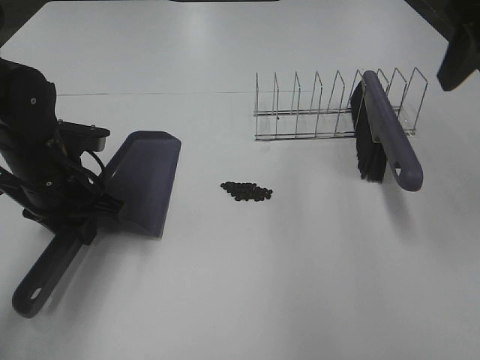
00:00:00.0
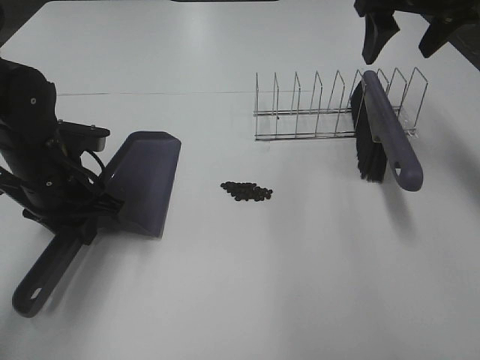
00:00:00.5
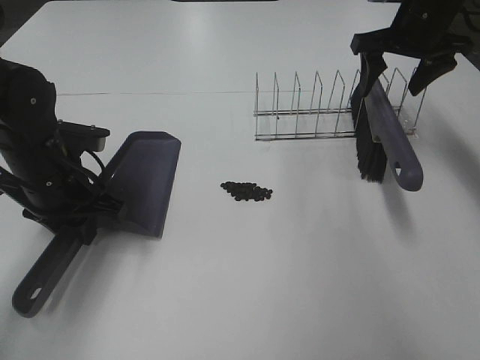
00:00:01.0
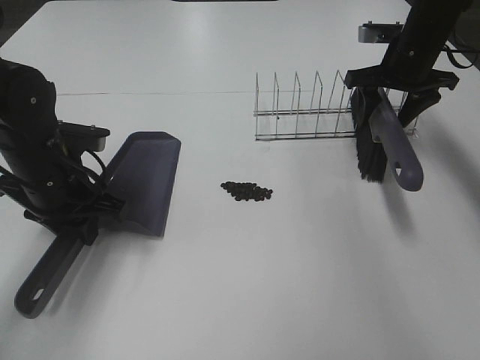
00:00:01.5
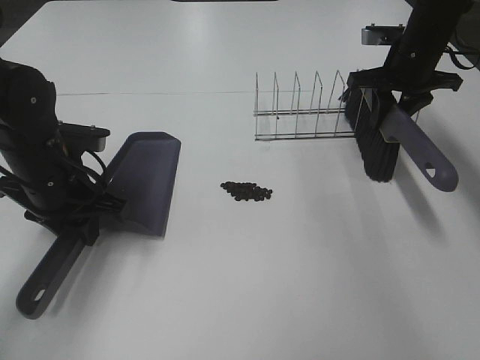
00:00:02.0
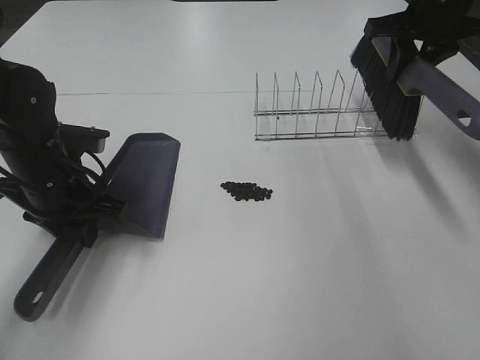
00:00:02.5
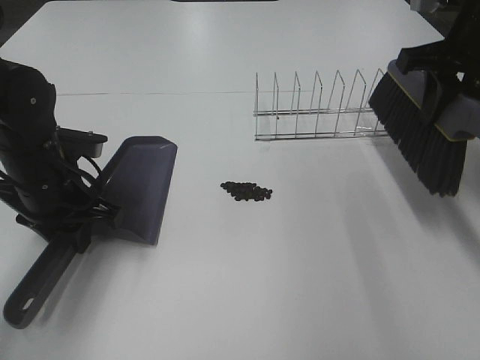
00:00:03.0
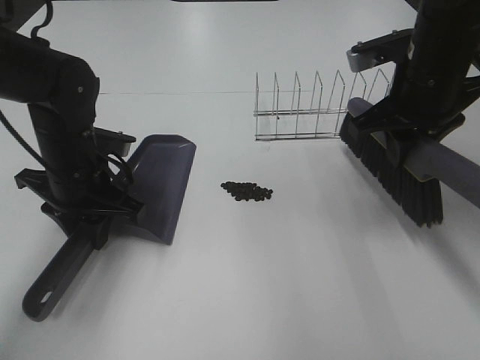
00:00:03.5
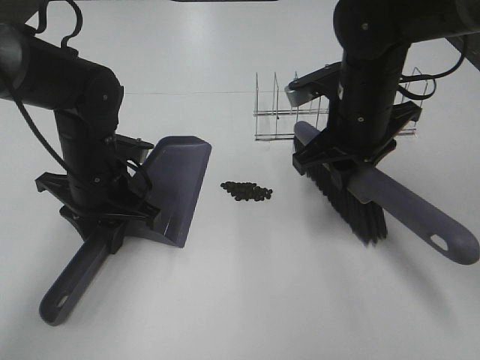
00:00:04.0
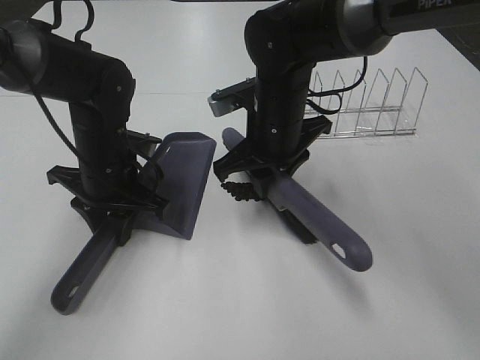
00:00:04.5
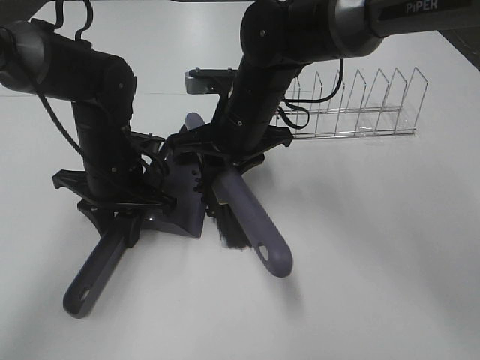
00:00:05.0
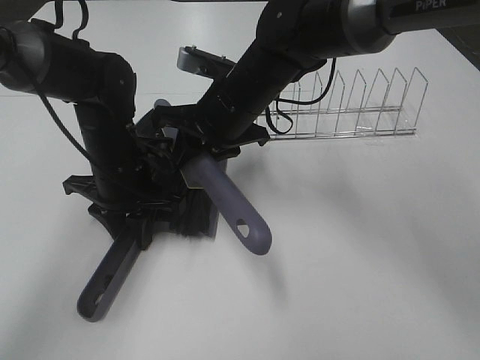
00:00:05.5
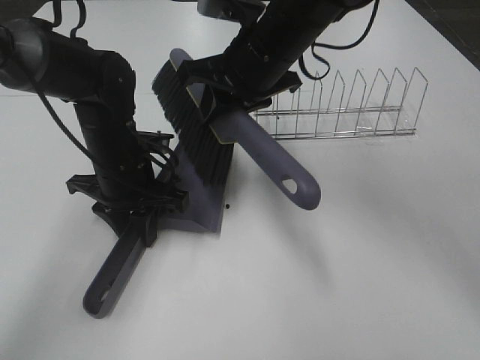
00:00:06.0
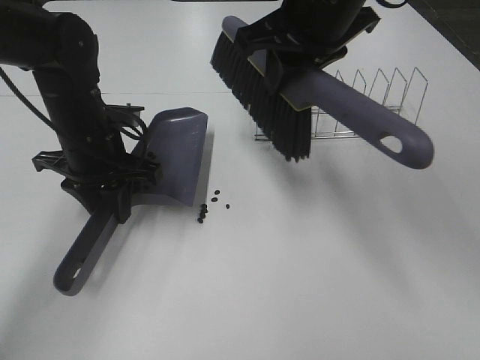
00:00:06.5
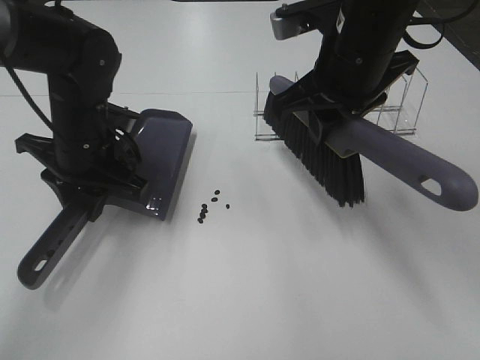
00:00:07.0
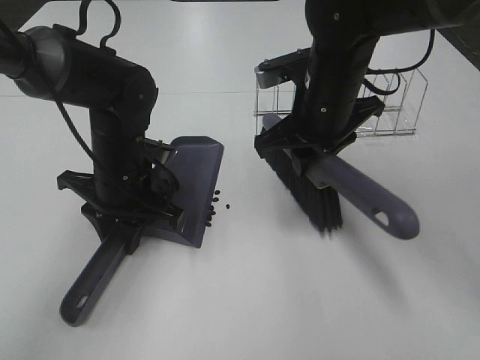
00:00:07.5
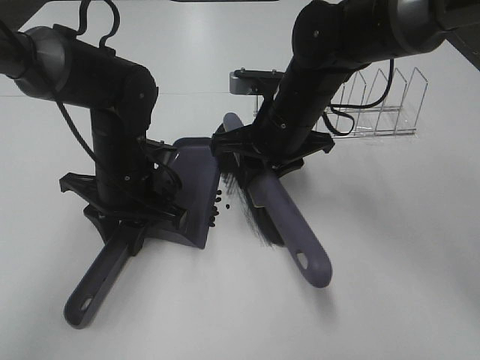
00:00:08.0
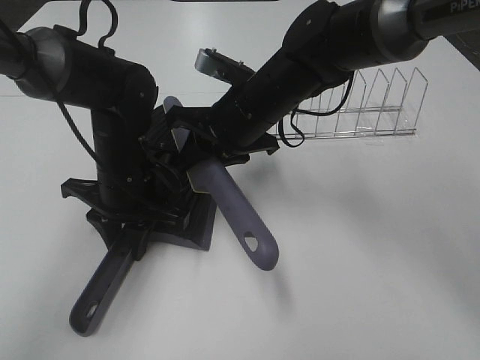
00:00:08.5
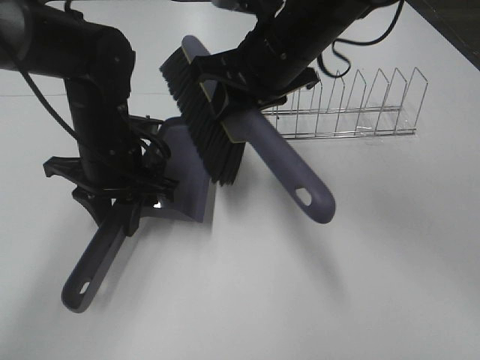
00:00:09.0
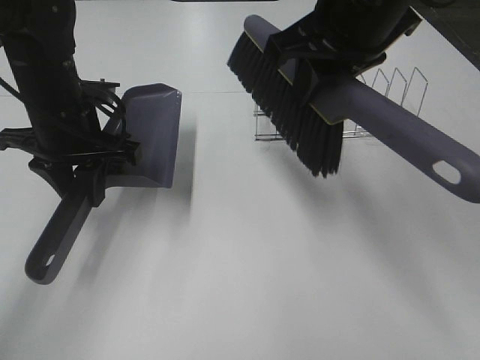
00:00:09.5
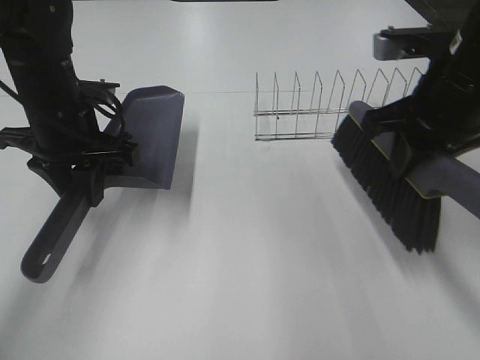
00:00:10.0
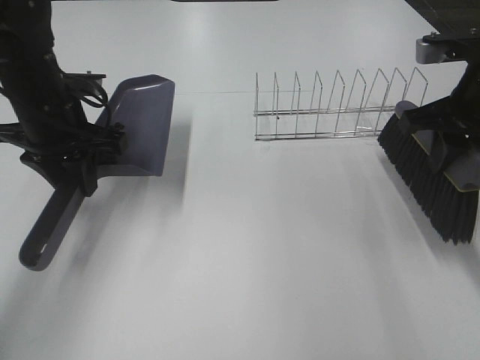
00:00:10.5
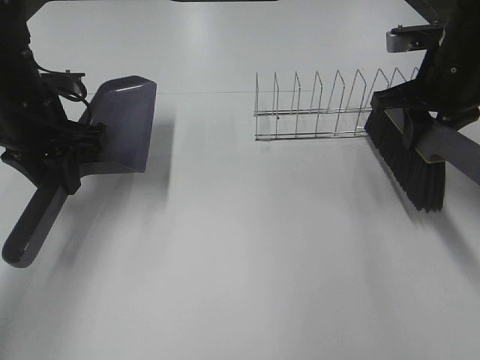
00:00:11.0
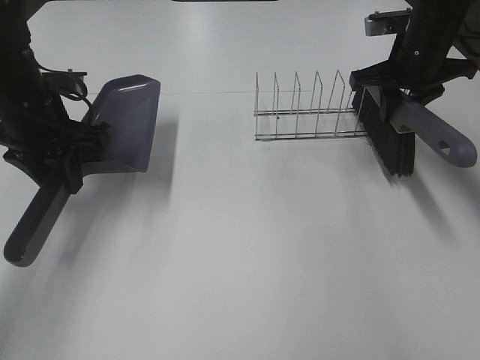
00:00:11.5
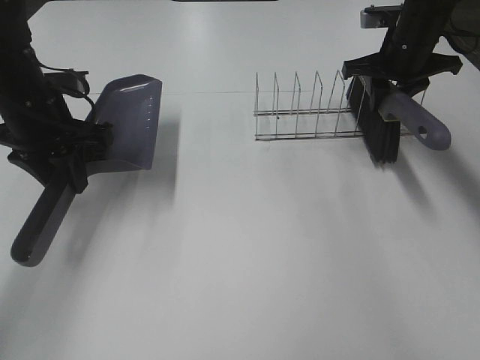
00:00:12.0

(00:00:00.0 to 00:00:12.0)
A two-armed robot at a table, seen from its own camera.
Task of the whole recording: Sweep Coffee Bean.
Step, 00:00:02.0 - 00:00:08.5: Right hand:sweep the coffee beans into the dustpan.
00:00:00.0 - 00:00:02.0: The right gripper moves forward and downward, roughly 25 cm, and closes up.
00:00:02.0 - 00:00:04.0: The left gripper shifts by about 5 cm, while the right gripper shifts roughly 20 cm backward and to the left.
00:00:04.0 - 00:00:06.0: The right gripper heads to the left and upward, covering approximately 10 cm.
00:00:06.0 - 00:00:08.0: The right gripper goes about 10 cm downward.
00:00:08.0 - 00:00:10.0: The right gripper heads to the right, upward and backward, covering about 20 cm. The left gripper goes some 10 cm upward and to the left.
00:00:10.0 - 00:00:12.0: The right gripper is displaced forward by approximately 20 cm.

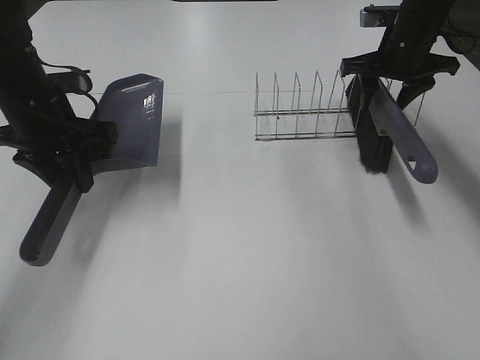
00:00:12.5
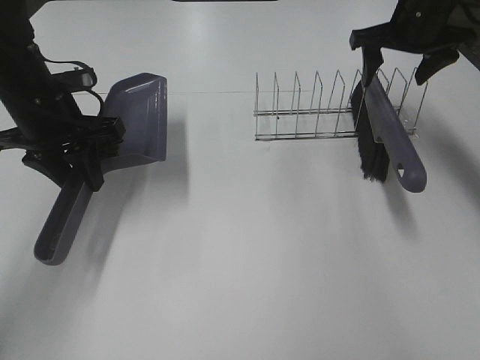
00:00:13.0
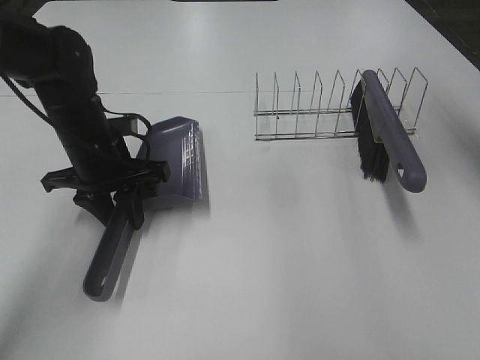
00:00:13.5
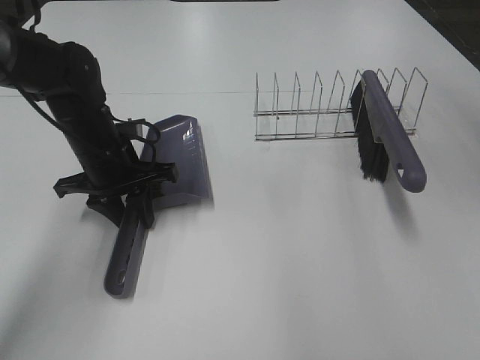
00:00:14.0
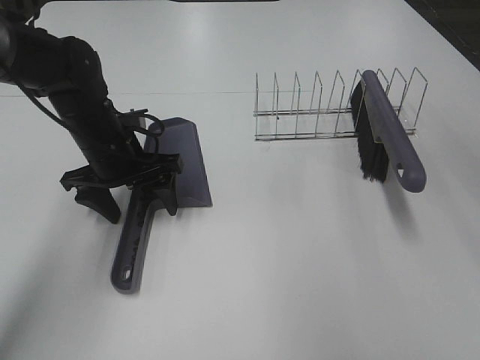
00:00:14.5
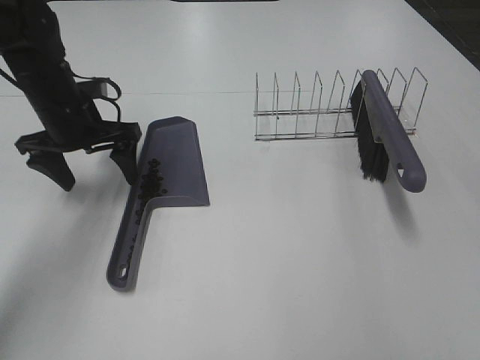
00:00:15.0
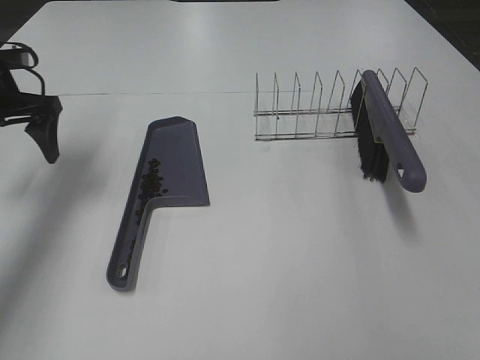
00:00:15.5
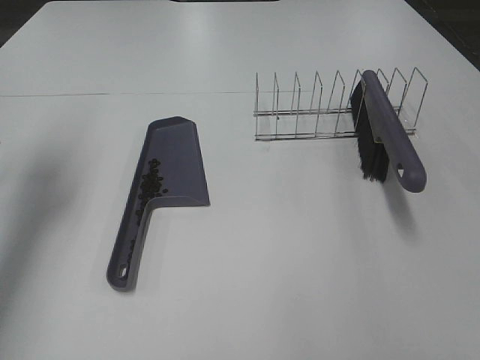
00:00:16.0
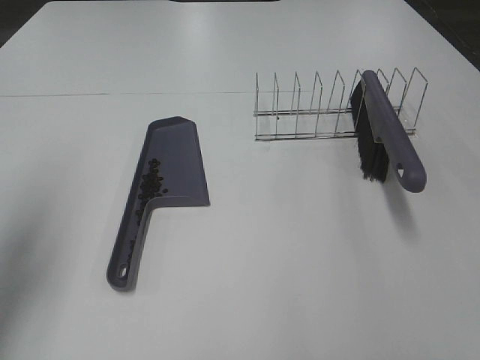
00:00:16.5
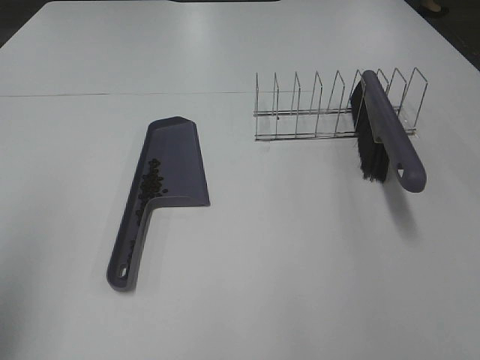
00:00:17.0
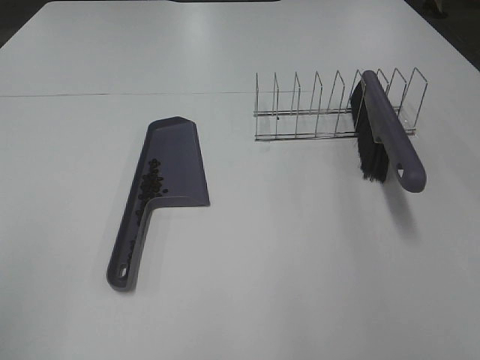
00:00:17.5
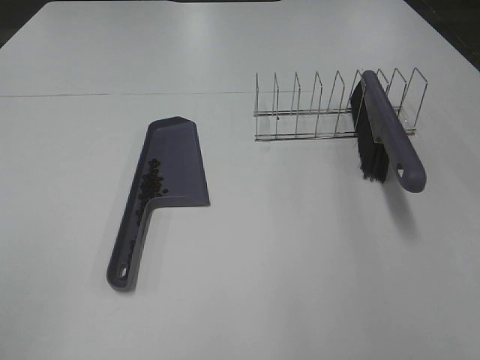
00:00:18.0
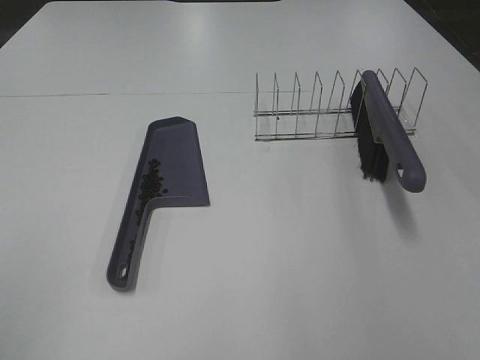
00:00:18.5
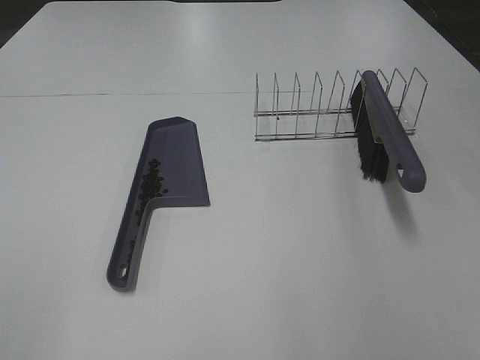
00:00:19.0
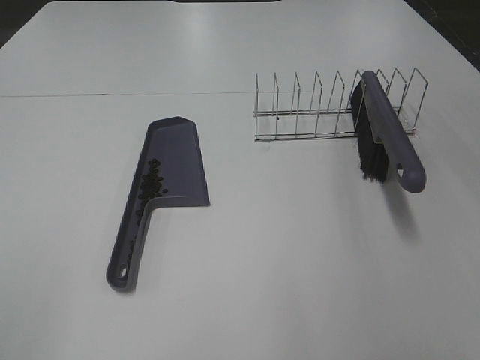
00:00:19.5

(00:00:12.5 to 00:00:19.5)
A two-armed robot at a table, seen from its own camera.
Task of the whole recording: Sweep Coffee Bean.
Step, 00:00:12.5 - 00:00:14.5: Left hand:place the dustpan on the table.
00:00:12.5 - 00:00:14.5: The left gripper is displaced downward and to the right by approximately 10 cm, and opens up. Meanwhile the right gripper moves backward and upward, about 35 cm.
00:00:14.5 - 00:00:16.0: The right gripper heads backward and downward, covering roughly 20 cm, while the left gripper goes some 25 cm to the left and upward.
00:00:16.0 - 00:00:17.5: The left gripper travels backward by some 30 cm.

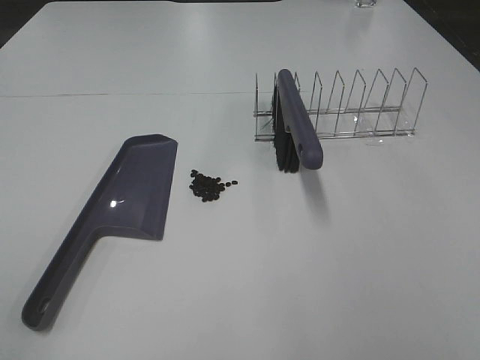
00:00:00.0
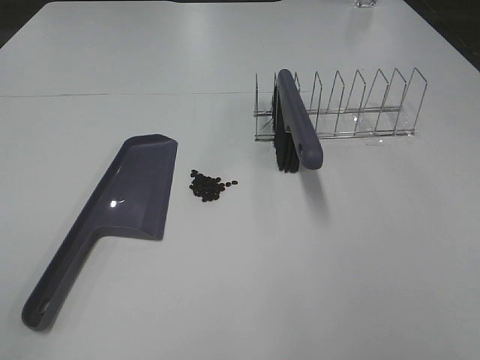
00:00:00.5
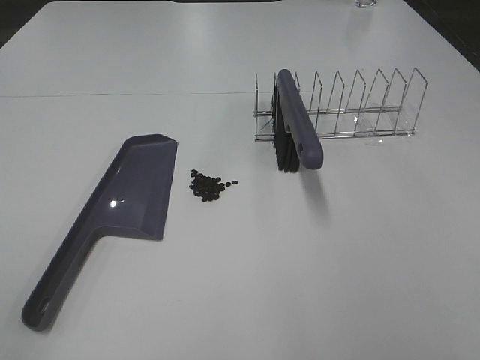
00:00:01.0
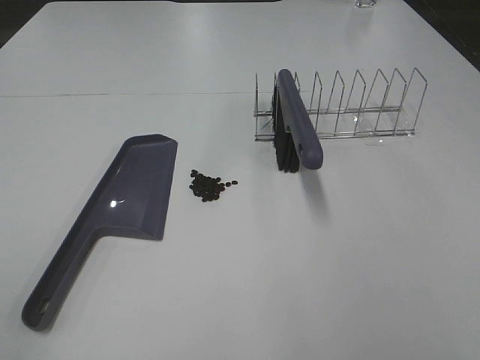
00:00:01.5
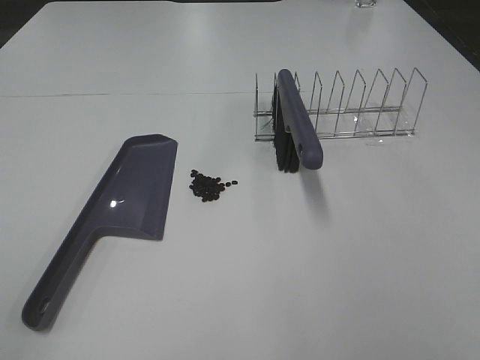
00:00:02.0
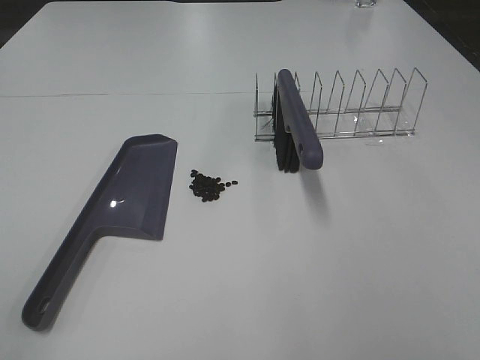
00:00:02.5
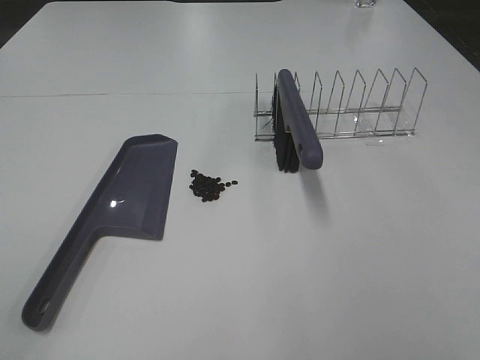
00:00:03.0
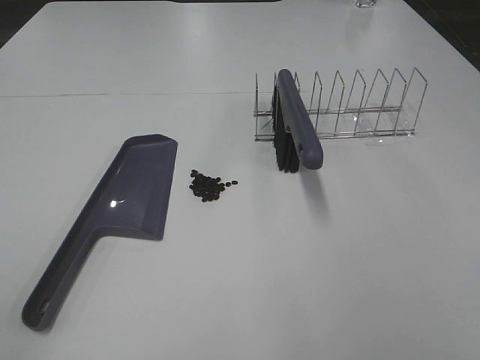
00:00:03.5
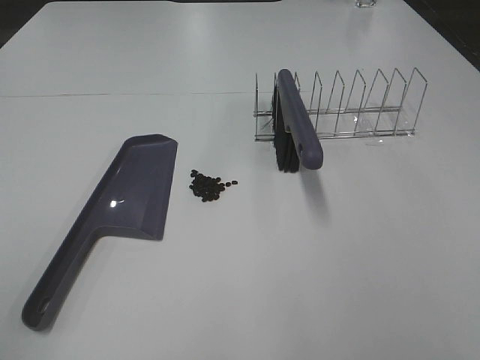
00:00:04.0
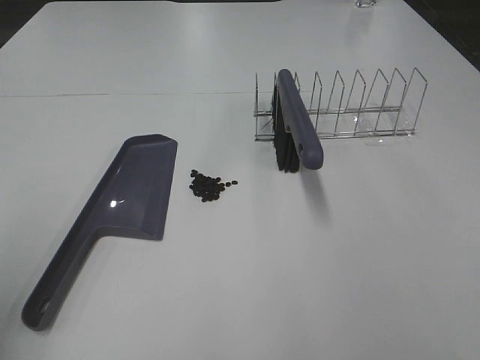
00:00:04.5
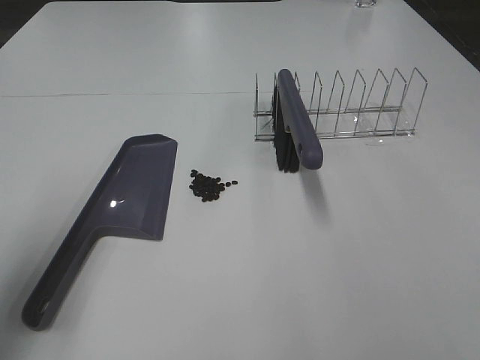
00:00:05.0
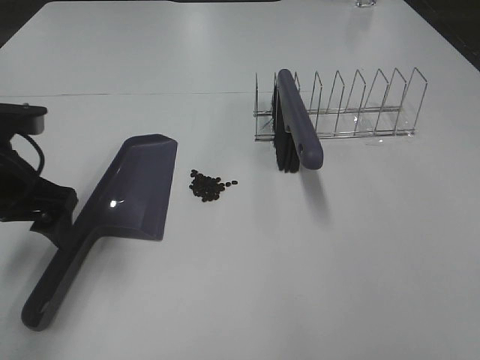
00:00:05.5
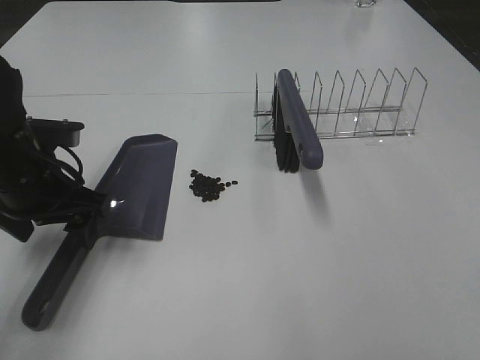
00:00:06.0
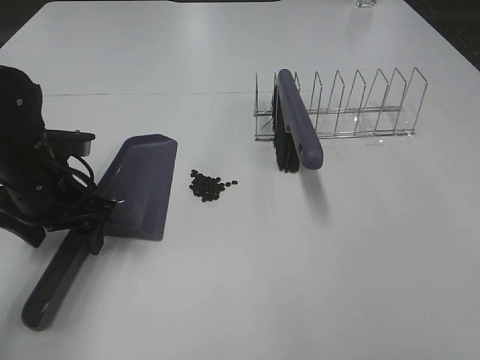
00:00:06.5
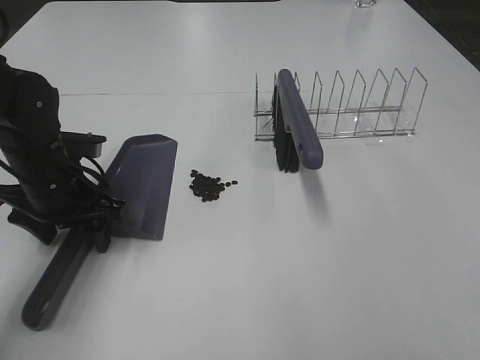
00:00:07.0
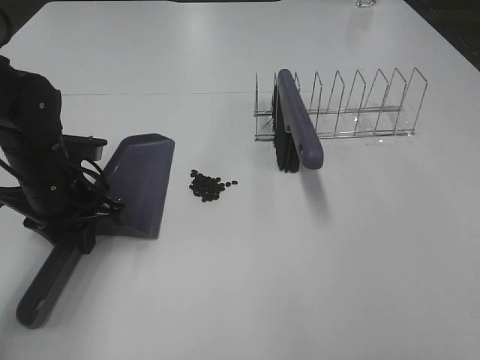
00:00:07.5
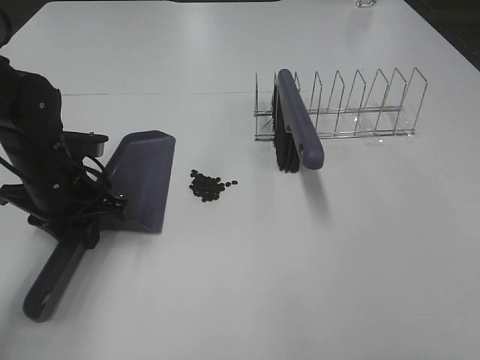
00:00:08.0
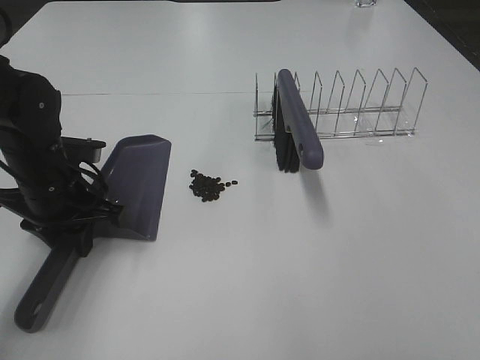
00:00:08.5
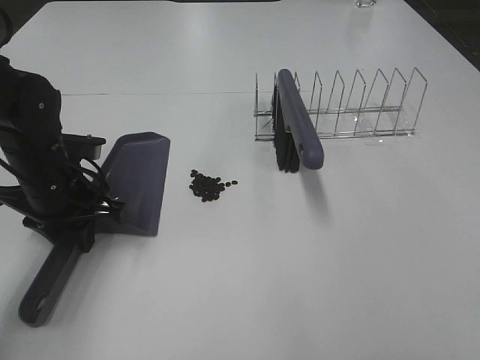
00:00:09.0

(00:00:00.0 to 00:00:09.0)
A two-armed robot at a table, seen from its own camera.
Task of the whole recording: Sweep Coffee Bean.
Step, 00:00:00.0 - 00:00:07.5: Left hand: grab the dustpan.
00:00:00.0 - 00:00:02.0: Both grippers stay about where they are.
00:00:04.5 - 00:00:07.0: The left gripper shifts some 30 cm forward, downward and to the right, and closes up.
00:00:07.0 - 00:00:09.0: The left gripper closes.
